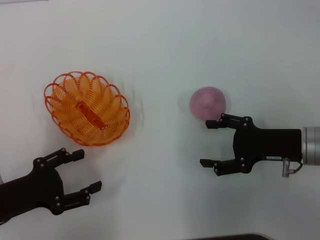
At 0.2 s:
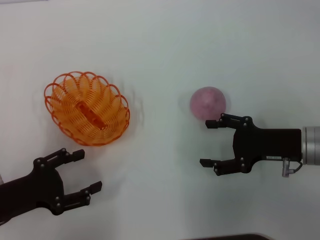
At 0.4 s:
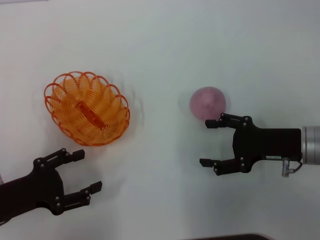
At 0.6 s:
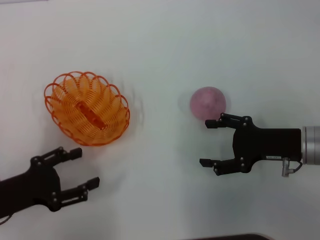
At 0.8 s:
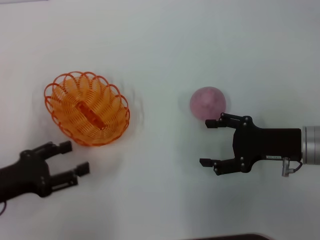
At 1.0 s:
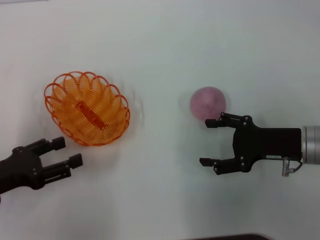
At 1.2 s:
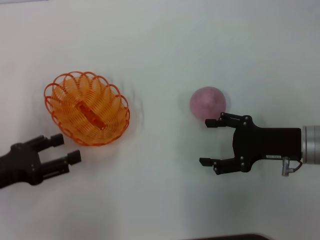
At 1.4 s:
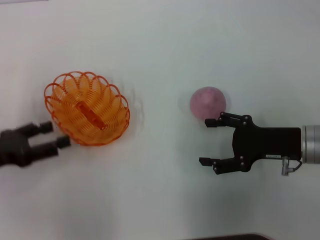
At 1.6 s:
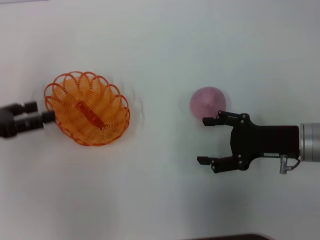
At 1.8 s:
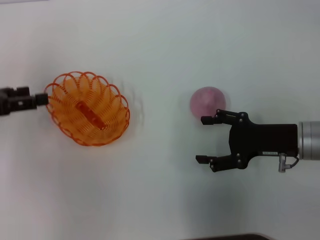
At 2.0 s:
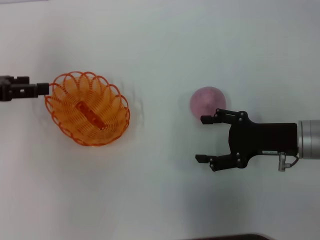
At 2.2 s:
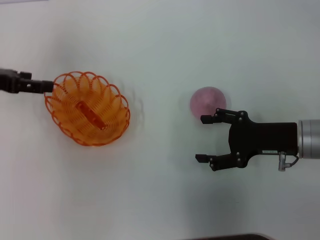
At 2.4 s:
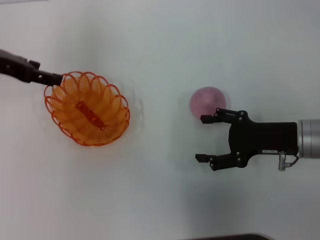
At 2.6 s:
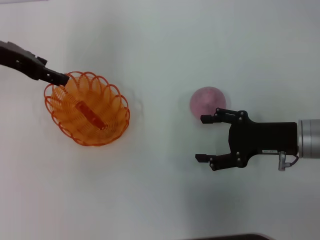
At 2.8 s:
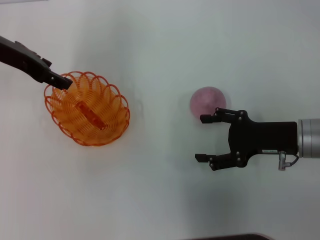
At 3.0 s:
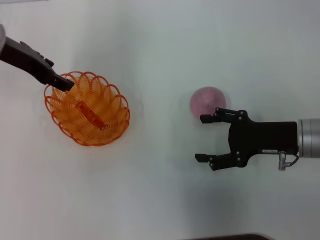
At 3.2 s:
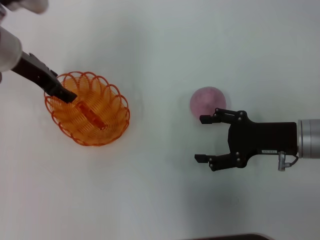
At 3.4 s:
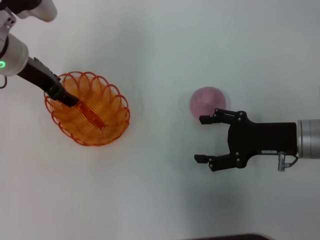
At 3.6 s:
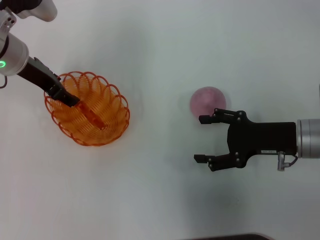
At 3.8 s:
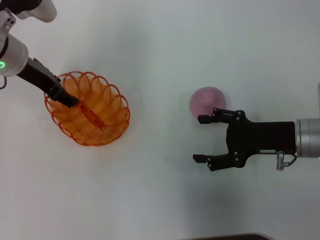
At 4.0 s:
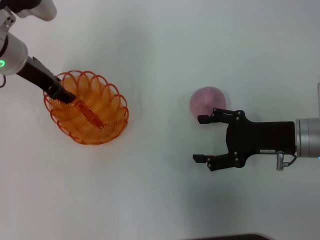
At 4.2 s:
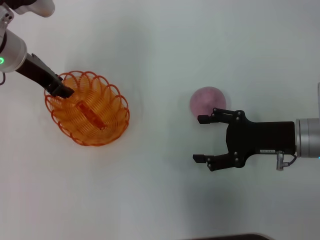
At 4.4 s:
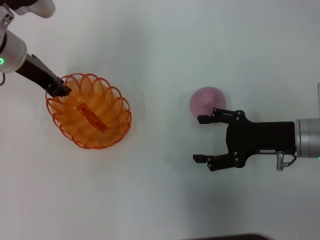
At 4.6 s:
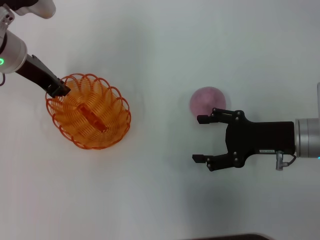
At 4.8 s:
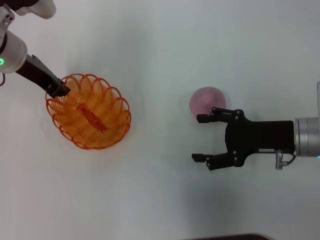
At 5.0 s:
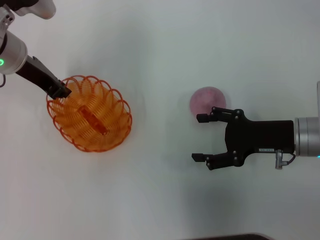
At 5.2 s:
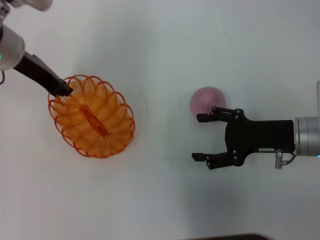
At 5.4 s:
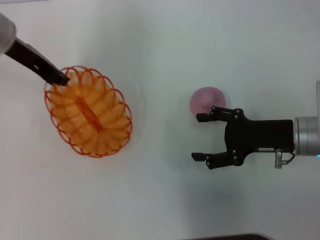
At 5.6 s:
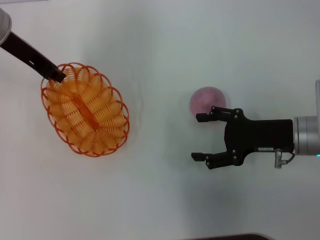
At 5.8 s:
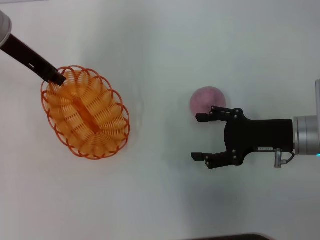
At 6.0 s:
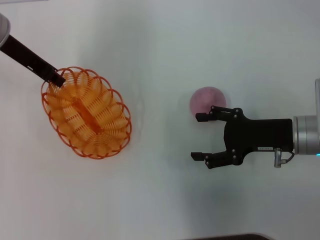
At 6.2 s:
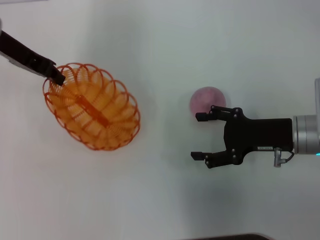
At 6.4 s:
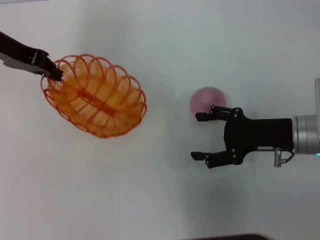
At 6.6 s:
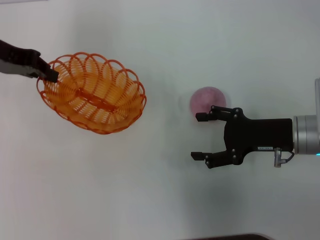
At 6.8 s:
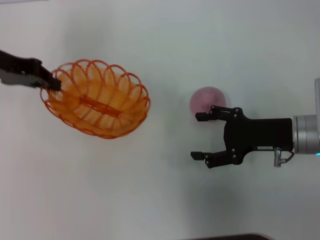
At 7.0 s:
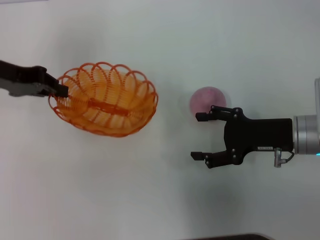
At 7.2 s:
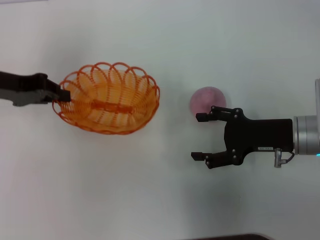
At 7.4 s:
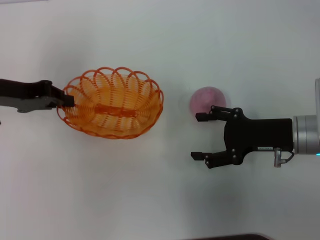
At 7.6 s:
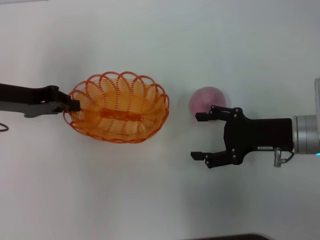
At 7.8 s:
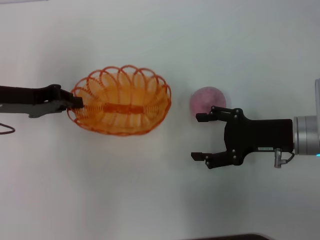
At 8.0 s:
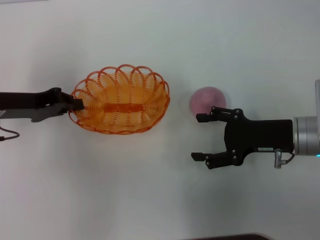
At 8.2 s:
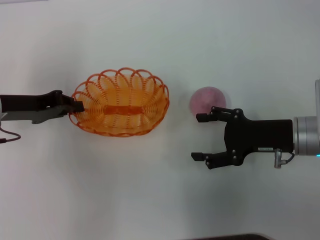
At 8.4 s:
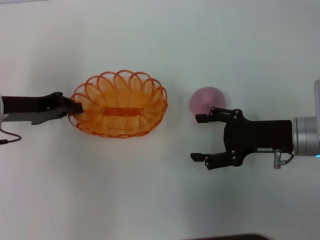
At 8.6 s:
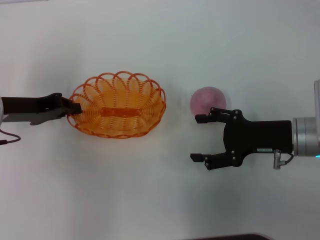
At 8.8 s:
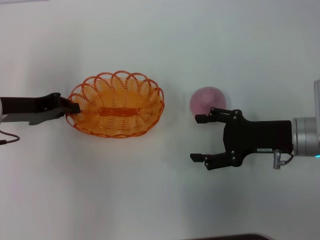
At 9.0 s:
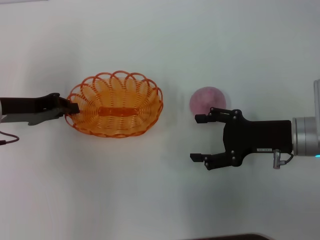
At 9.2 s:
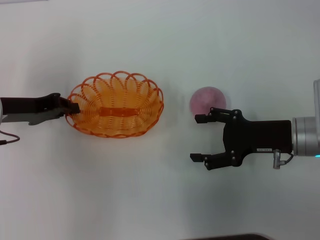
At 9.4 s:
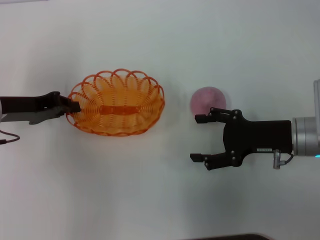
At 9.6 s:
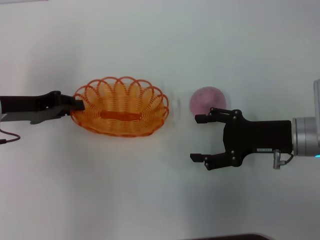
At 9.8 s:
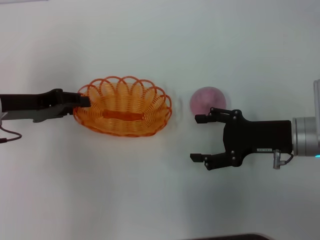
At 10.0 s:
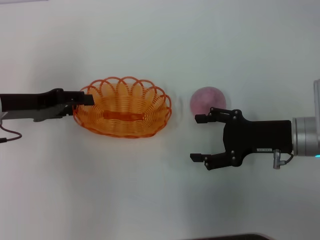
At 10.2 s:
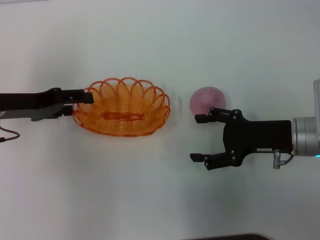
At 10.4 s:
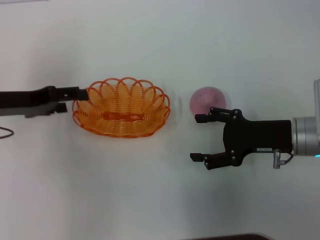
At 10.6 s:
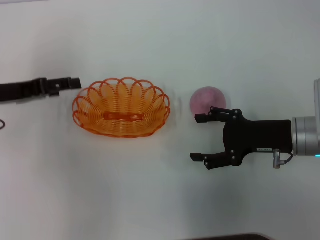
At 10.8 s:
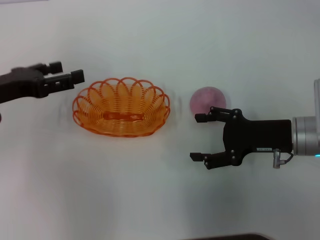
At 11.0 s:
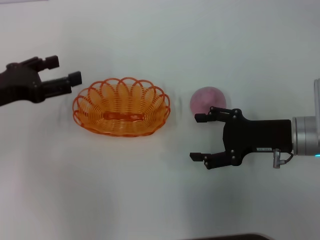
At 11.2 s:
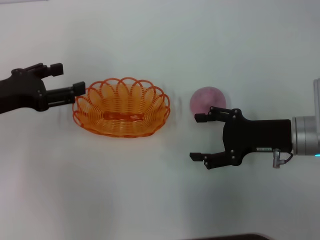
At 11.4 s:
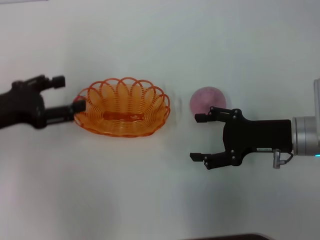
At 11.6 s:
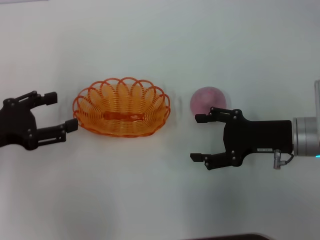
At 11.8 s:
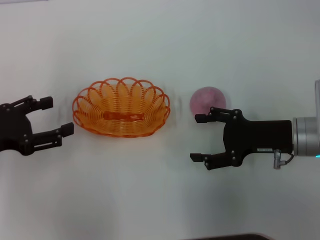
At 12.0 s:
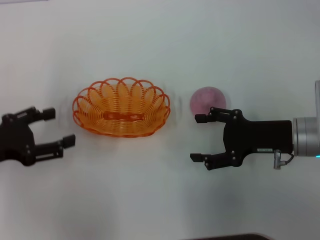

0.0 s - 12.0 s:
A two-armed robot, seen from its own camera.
Step, 0.0 s - 6.0 s: Pick up the basket with the left gripper.
Step, 6.4 s - 10.8 s: Place the basket in the center of view with the left gripper.
0.0 s - 1.6 s: The left gripper is displaced forward and upward by about 10 cm.
1.6 s - 3.0 s: The left gripper heads forward, to the right and upward, covering approximately 20 cm.
3.0 s - 4.4 s: The left gripper closes.
4.4 s - 6.0 s: The grippers make only small movements.
6.0 s - 7.6 s: The left gripper heads backward and downward, covering approximately 10 cm.
7.6 s - 9.0 s: The grippers stay close to where they were, moving slightly.
9.0 s - 10.4 s: The left gripper opens up.
10.4 s - 12.0 s: The left gripper is displaced backward by some 10 cm.

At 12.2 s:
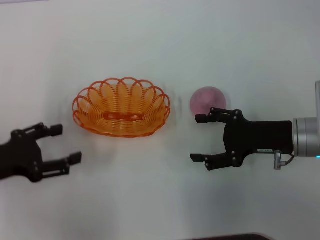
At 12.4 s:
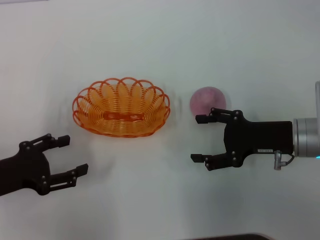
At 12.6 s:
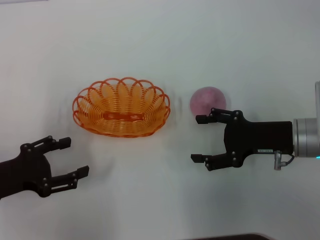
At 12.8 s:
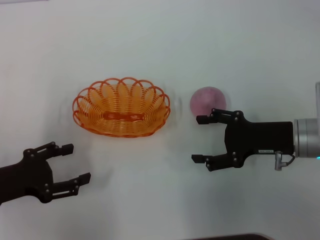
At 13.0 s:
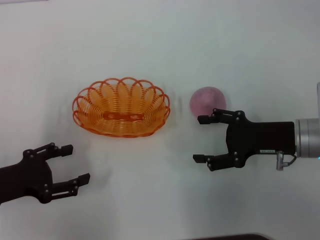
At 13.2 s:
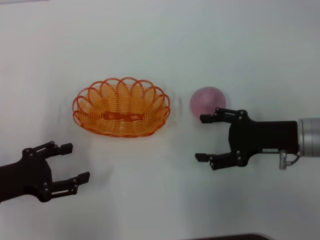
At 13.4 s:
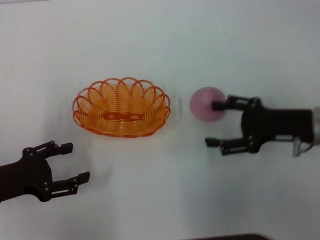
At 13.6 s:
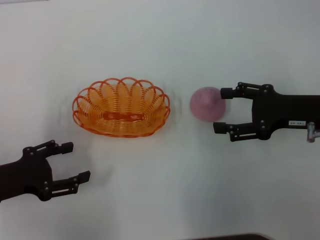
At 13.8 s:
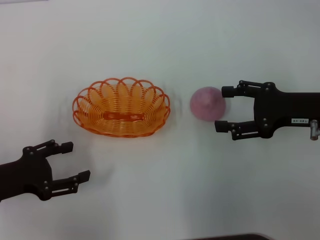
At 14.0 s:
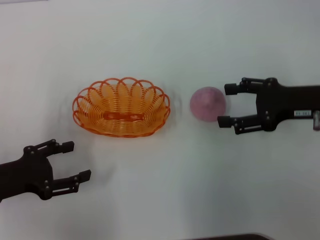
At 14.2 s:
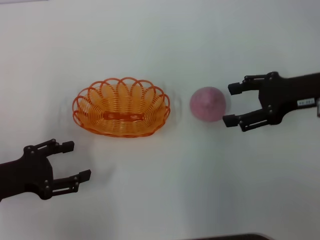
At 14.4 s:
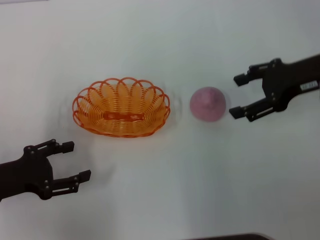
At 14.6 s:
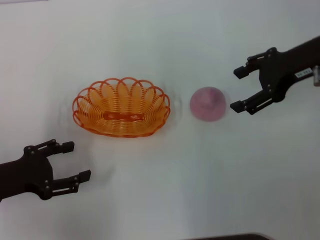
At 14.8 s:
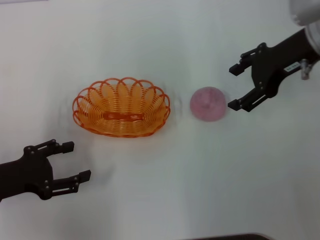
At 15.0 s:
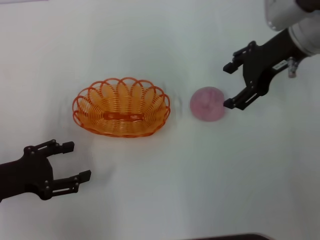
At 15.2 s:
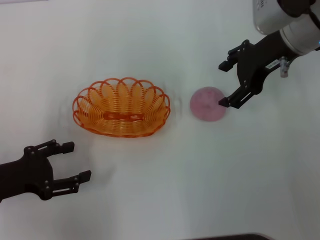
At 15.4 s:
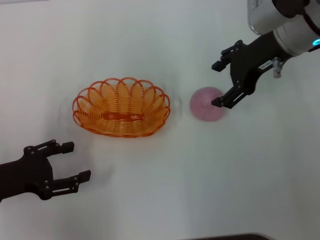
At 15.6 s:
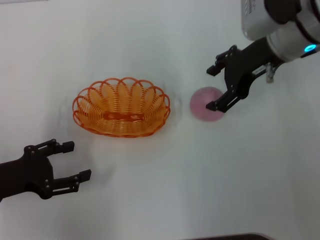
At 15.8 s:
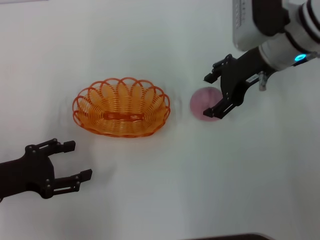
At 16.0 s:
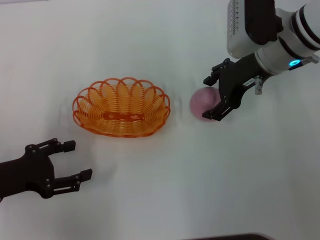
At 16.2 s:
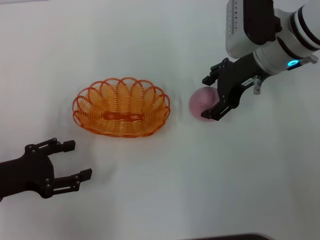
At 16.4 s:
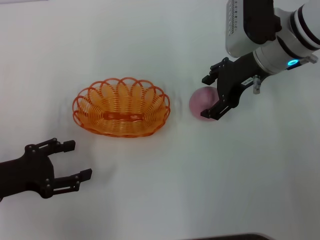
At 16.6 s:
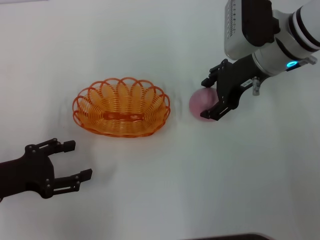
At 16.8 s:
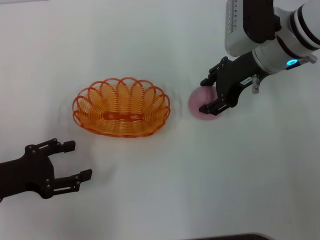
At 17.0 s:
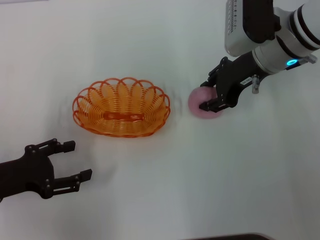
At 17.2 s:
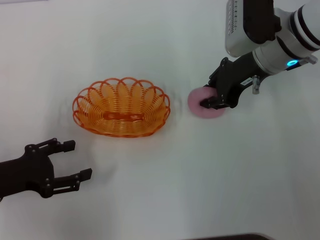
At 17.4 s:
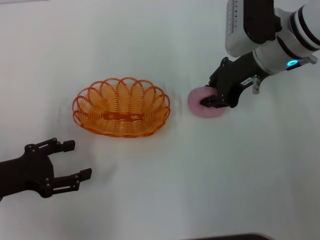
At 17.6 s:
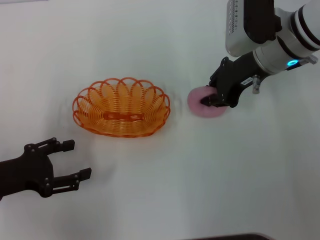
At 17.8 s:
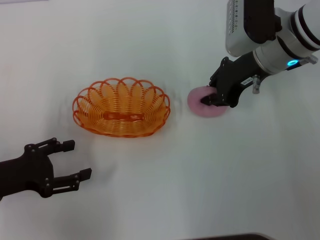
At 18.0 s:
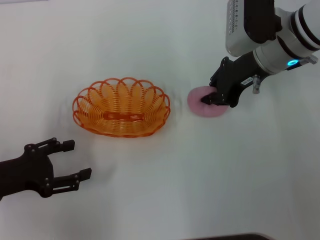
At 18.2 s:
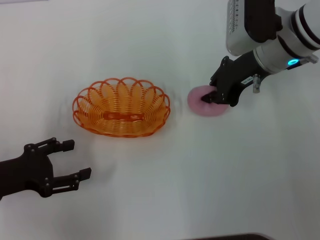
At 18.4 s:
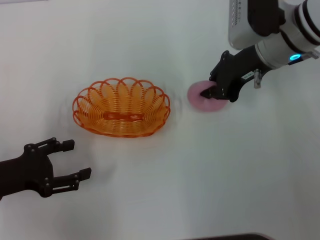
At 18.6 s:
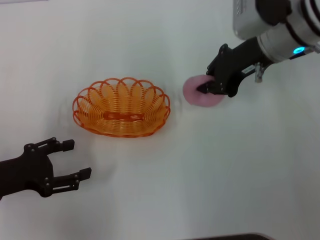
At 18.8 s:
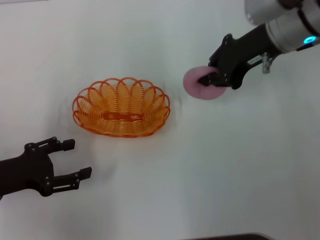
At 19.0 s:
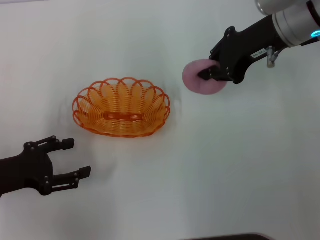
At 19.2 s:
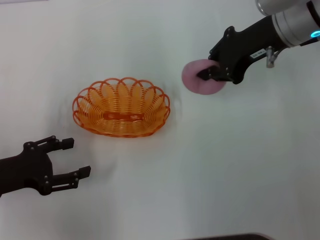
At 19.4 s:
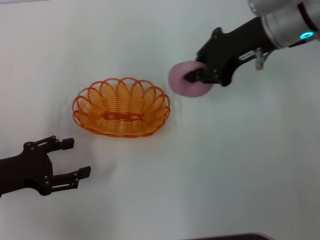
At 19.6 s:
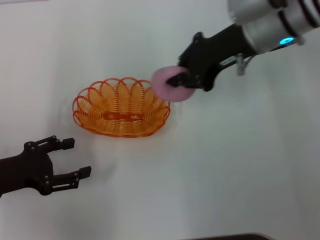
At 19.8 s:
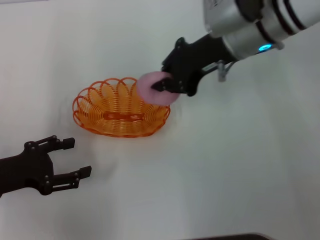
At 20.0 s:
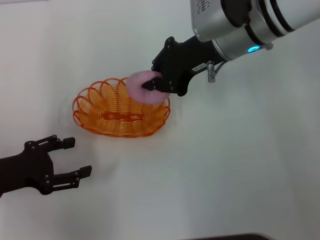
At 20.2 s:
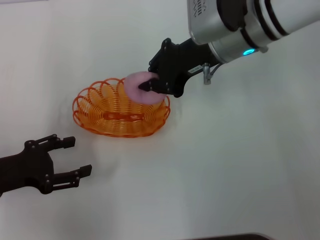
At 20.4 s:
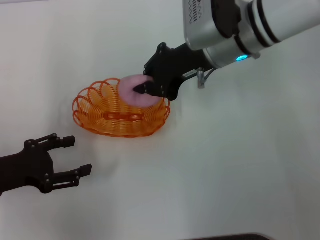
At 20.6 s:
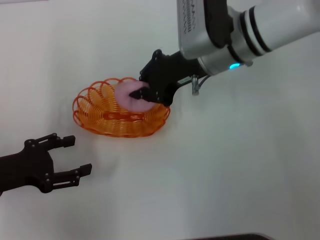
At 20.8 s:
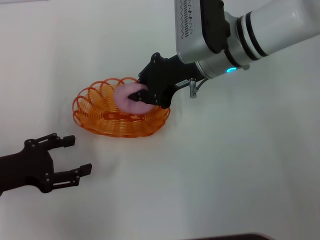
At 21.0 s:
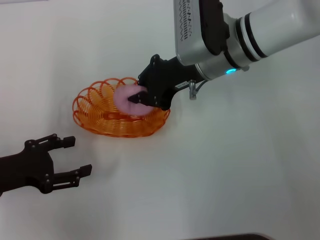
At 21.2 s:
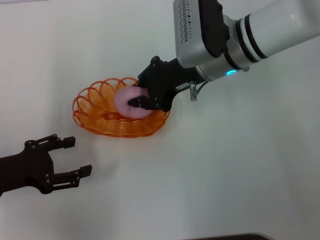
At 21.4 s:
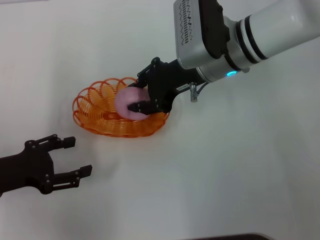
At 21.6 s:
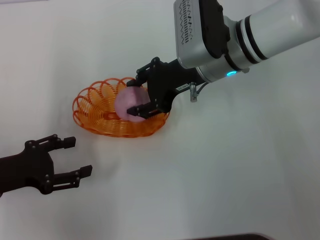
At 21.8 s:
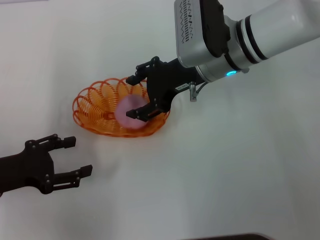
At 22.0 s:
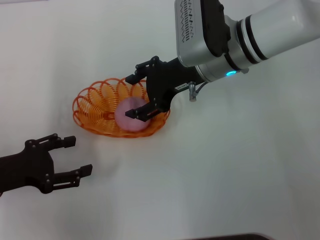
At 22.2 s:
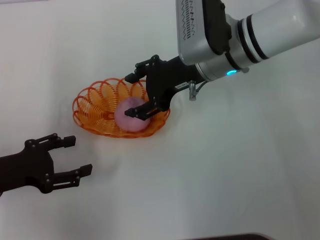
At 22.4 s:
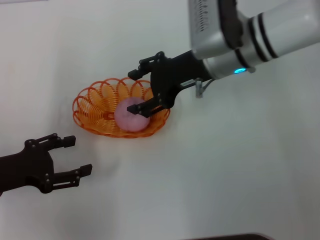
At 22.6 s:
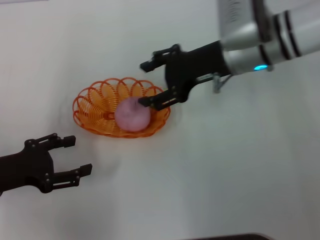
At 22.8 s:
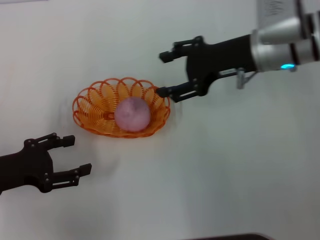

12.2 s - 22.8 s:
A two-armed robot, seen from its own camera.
Step, 12.2 s - 19.0 s: Pick up the peach with the right gripper.
12.2 s - 13.8 s: The right gripper moves about 5 cm.
13.8 s - 15.2 s: The right gripper is displaced forward, upward and to the left by about 15 cm.
15.2 s - 16.8 s: There are only small adjustments of the grippers.
16.8 s - 18.2 s: The right gripper closes up.
18.2 s - 19.8 s: The right gripper shifts about 5 cm to the left.
19.8 s - 21.2 s: The right gripper moves some 5 cm.
21.2 s - 22.8 s: The right gripper is displaced to the right by some 10 cm, and opens up.
